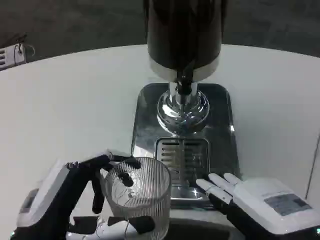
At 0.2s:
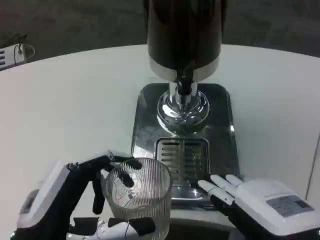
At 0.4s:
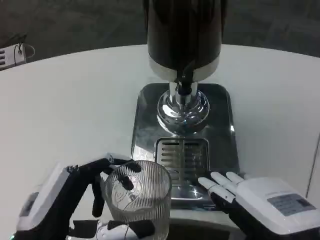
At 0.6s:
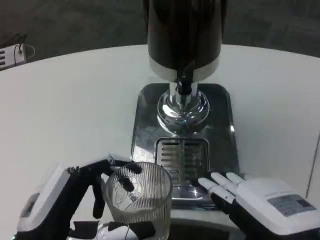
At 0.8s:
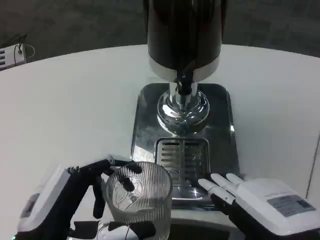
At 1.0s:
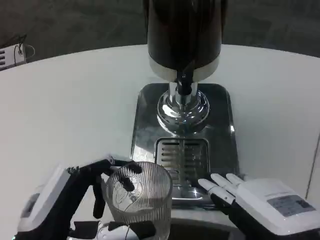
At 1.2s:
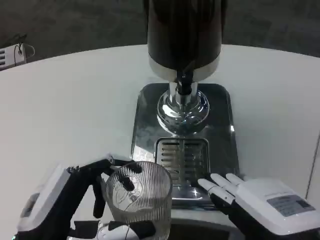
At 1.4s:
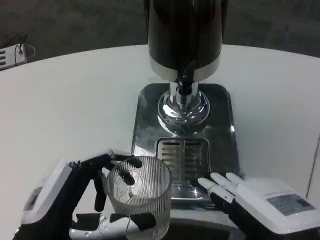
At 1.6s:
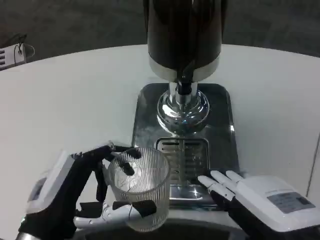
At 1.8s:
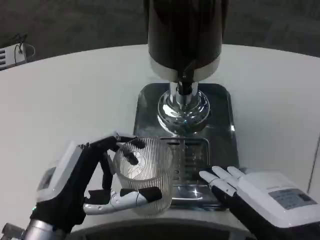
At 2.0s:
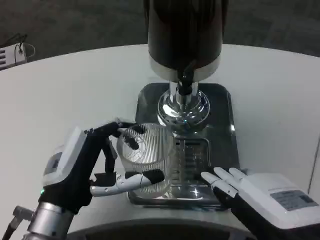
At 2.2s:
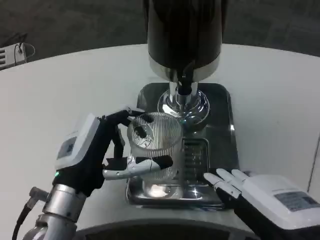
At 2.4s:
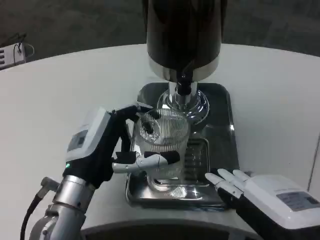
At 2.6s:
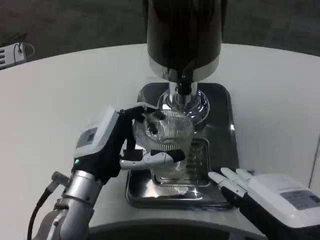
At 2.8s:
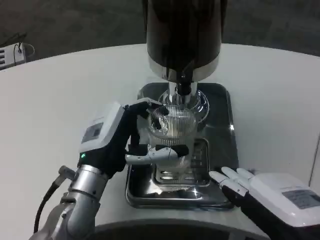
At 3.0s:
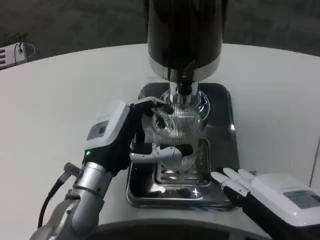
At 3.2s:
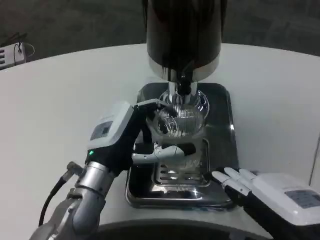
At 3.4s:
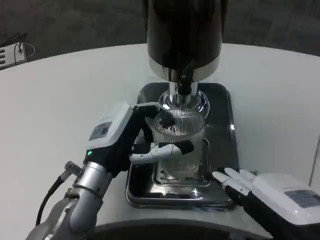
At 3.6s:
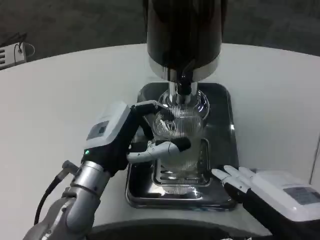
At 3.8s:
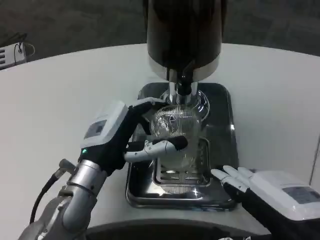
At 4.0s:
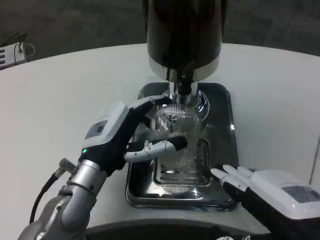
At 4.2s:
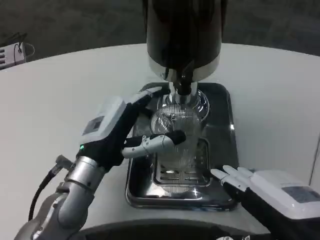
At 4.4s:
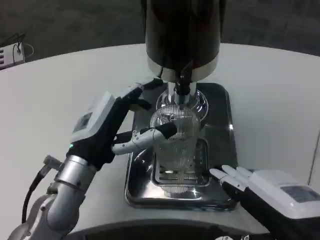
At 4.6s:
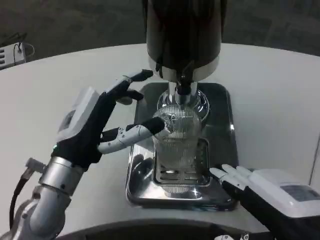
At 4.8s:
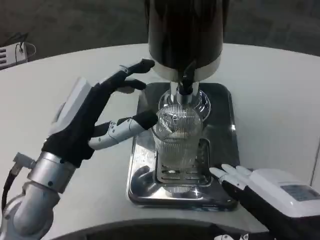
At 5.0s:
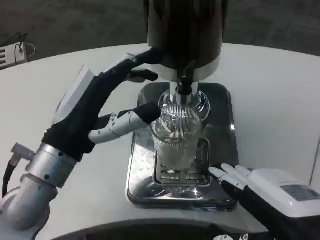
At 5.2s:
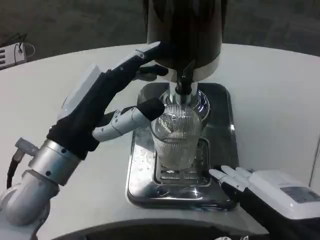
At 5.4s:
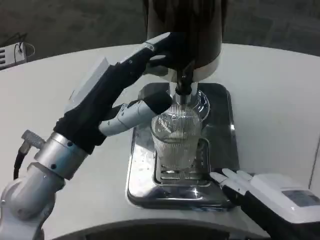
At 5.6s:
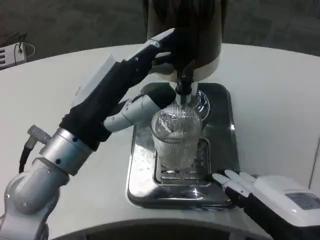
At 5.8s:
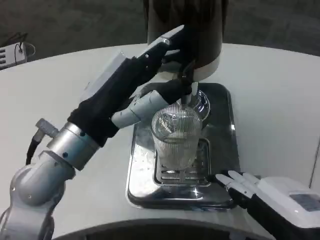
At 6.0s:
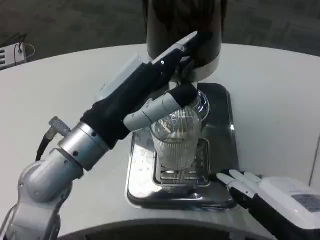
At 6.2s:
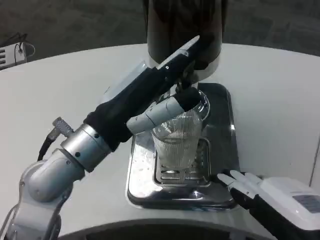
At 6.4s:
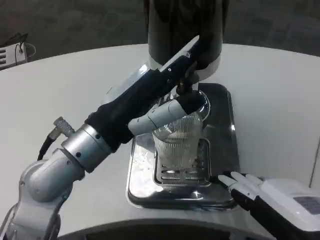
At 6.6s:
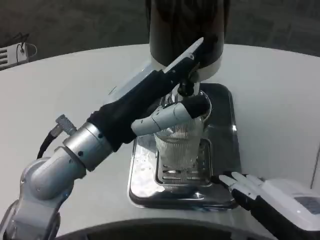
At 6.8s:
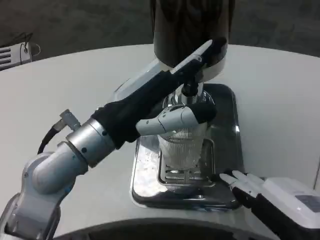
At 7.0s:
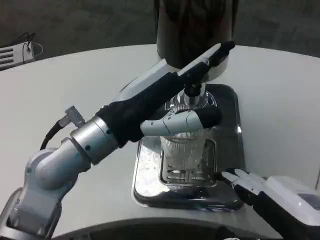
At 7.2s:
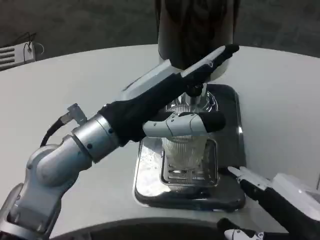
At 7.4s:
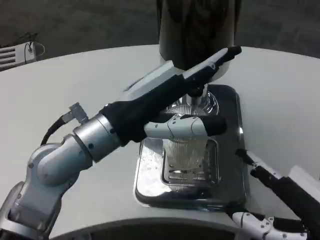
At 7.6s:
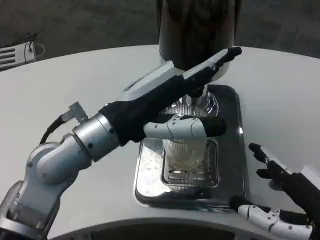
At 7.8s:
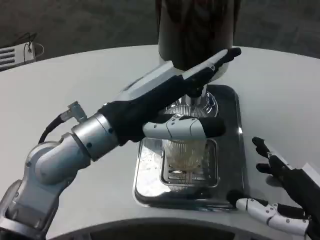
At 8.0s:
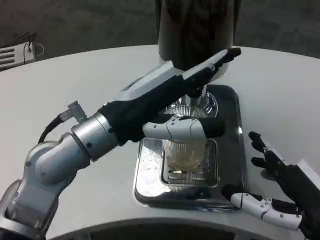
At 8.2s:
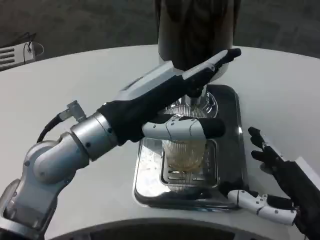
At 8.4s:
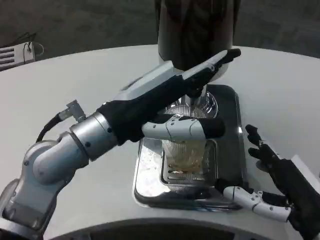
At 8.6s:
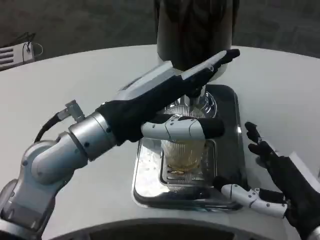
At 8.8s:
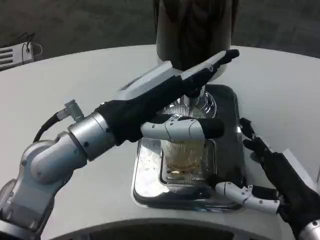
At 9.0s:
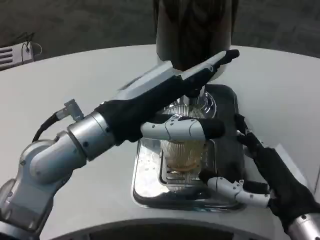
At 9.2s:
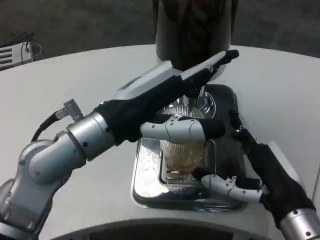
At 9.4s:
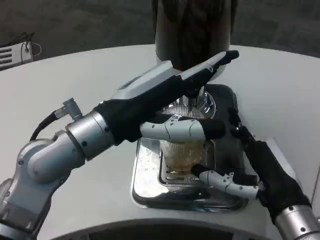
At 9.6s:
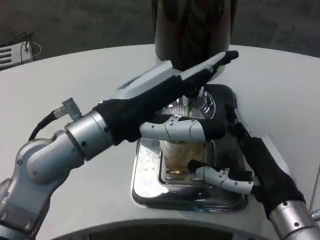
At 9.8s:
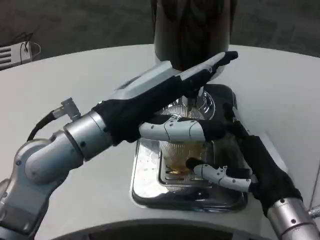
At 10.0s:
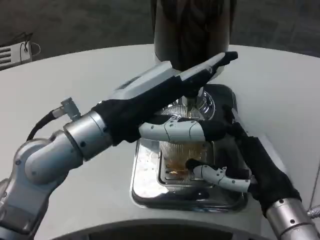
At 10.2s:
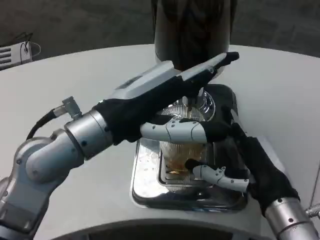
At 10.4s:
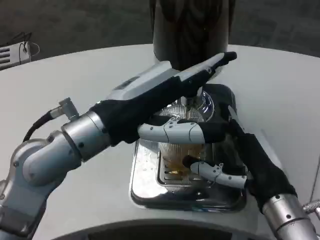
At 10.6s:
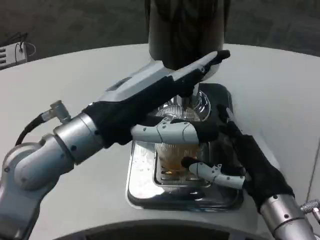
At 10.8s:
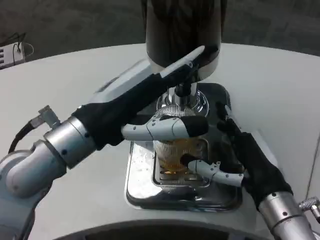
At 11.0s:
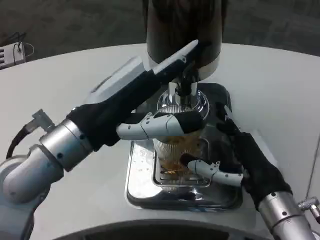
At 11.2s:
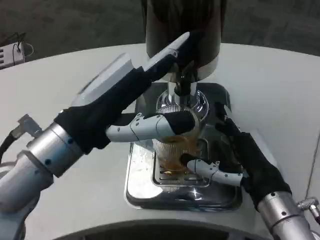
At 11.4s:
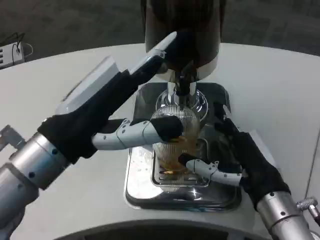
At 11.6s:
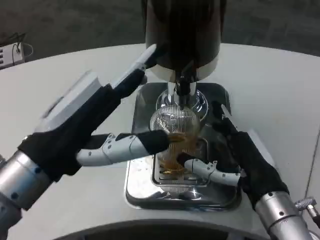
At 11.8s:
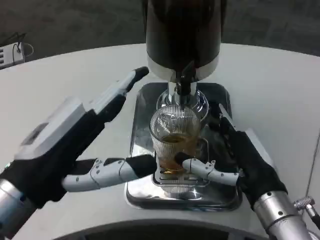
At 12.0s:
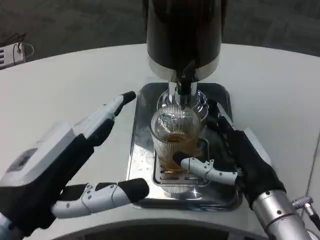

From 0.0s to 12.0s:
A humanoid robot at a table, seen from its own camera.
Task of the whole recording: Grasp the cup under the faucet to collect the drink, then remove the cup.
From 0.0s to 1.6s: The hands make only small movements.
From 1.6s to 3.0s: The left hand travels forward and to the right by some 10 cm.
From 3.0s to 4.4s: There are only small adjustments of the hands.
From 4.4s to 6.0s: The left hand goes some 10 cm upward.
From 7.6s to 9.0s: The right hand heads forward, covering some 5 cm.
From 10.4s to 12.0s: The left hand moves backward, to the left and downward, roughly 15 cm.

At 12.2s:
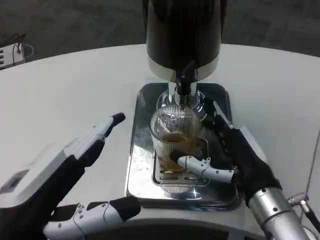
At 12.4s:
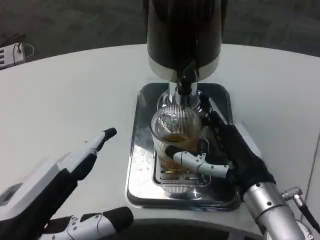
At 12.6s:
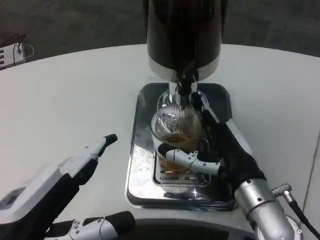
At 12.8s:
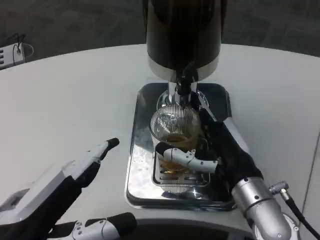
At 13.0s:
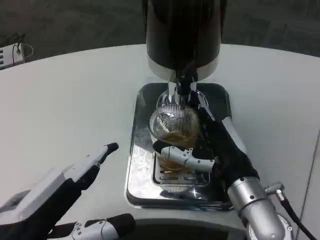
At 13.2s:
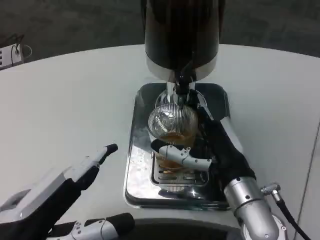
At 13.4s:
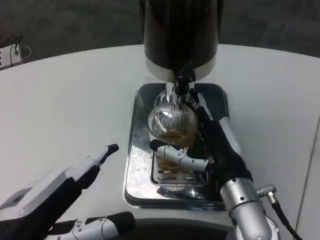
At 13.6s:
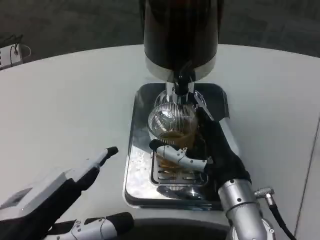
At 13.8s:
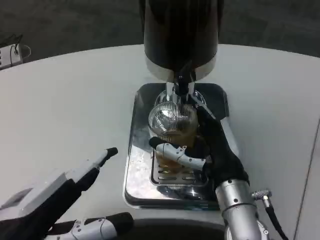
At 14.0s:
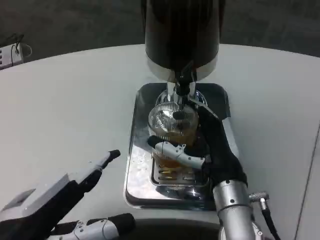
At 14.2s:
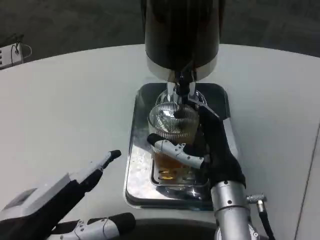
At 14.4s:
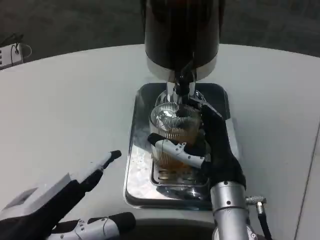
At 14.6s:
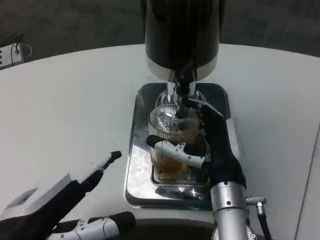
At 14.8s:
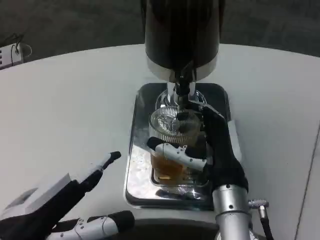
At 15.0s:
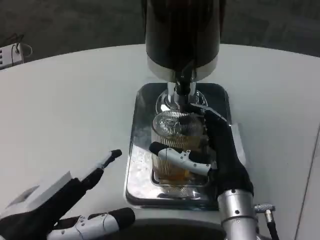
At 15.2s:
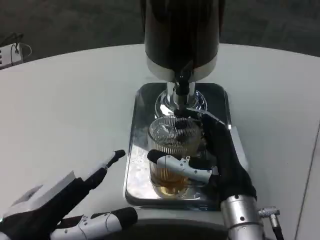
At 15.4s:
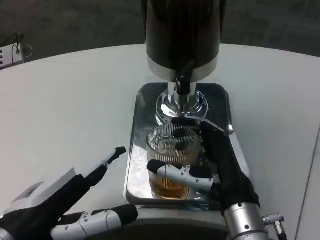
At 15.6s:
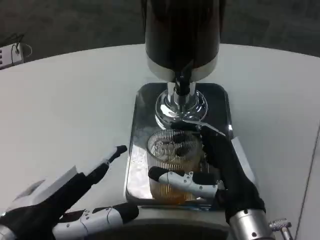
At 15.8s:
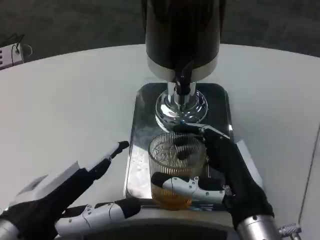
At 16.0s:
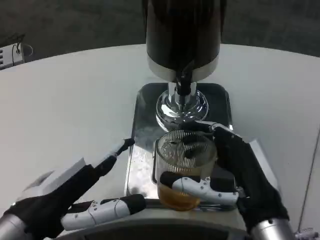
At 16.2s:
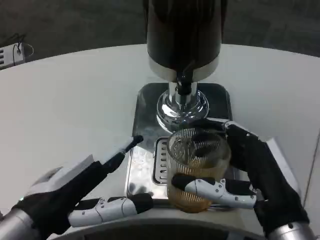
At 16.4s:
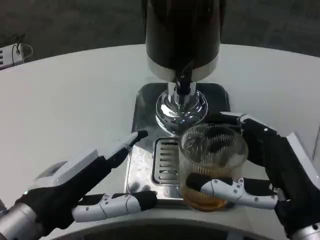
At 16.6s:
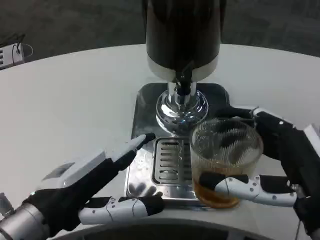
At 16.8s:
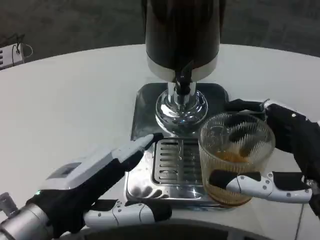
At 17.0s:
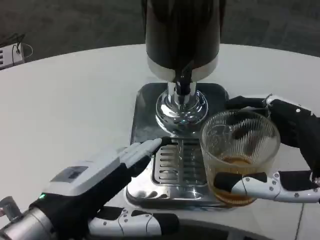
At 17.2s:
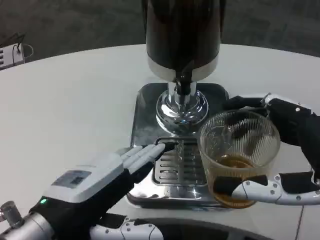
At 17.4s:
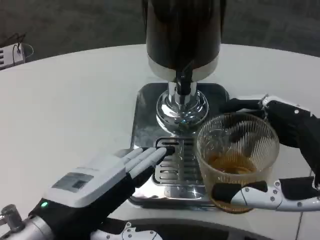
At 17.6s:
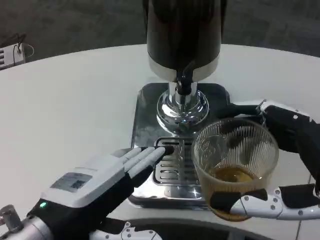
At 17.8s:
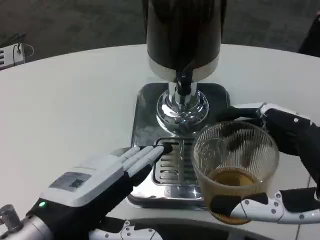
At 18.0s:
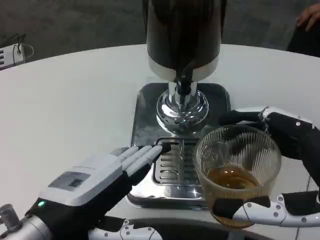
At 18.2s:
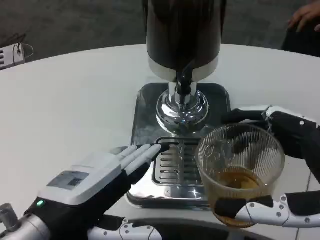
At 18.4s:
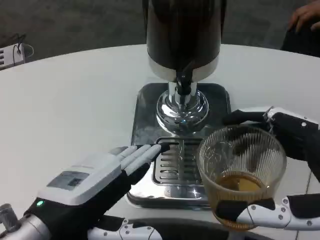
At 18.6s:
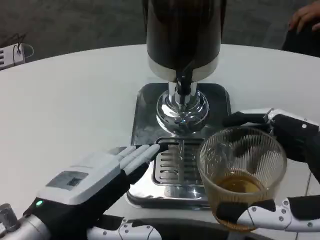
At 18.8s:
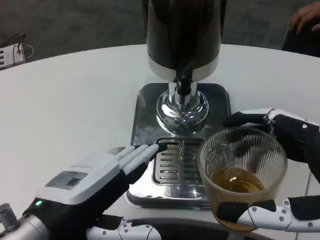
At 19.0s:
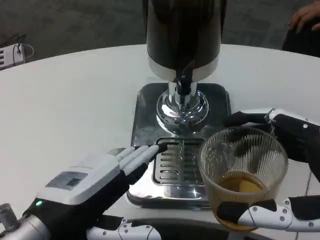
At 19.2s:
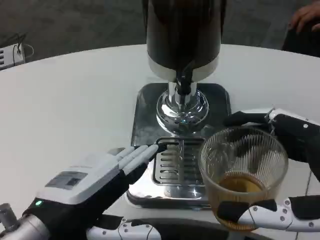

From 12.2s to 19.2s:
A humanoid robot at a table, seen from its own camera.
Task of the whole recording: Grasp the cup under the faucet to collect the drink, then remove the cup.
From 12.2s to 13.6s: The right hand moves about 5 cm.
From 13.6s to 15.0s: The hands make only small movements.
From 15.0s to 16.4s: The right hand heads backward and to the right, covering roughly 10 cm.
From 16.4s to 17.8s: The right hand changes place by some 5 cm.
From 17.8s to 19.2s: Neither hand changes place.
